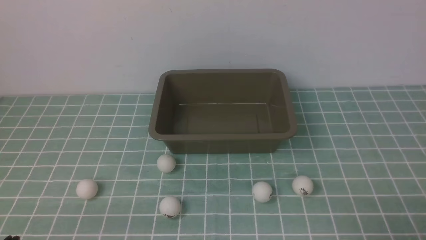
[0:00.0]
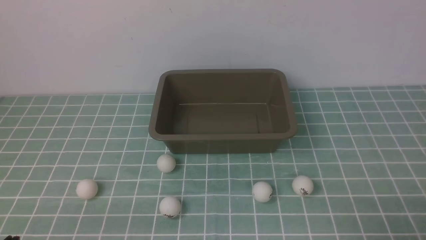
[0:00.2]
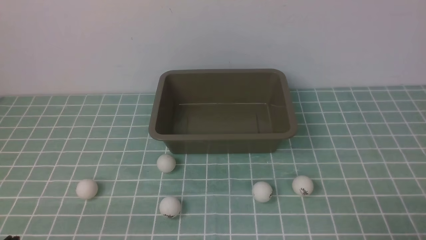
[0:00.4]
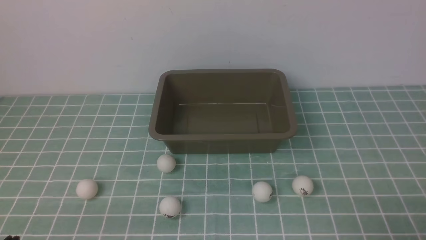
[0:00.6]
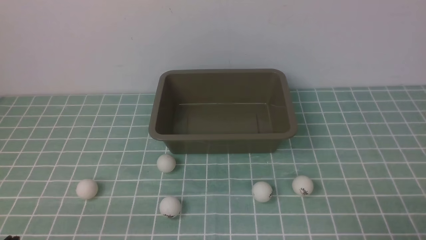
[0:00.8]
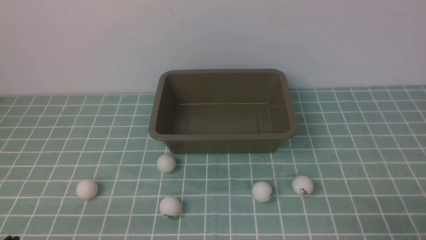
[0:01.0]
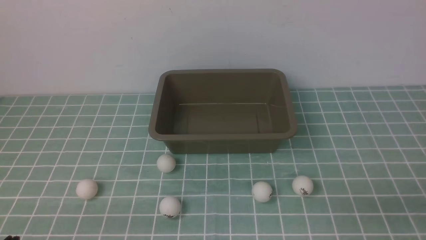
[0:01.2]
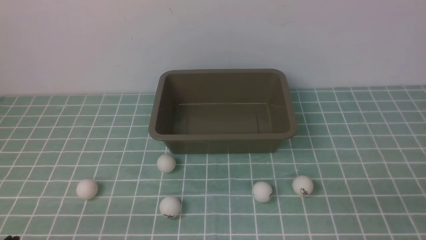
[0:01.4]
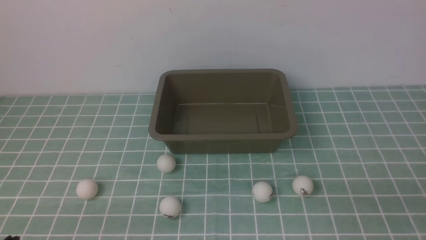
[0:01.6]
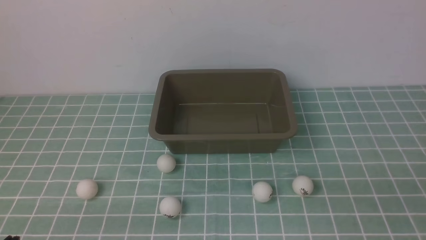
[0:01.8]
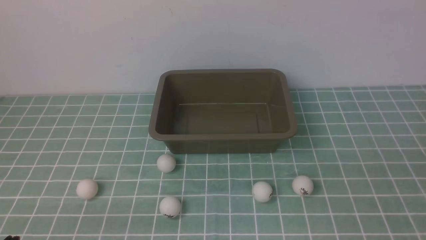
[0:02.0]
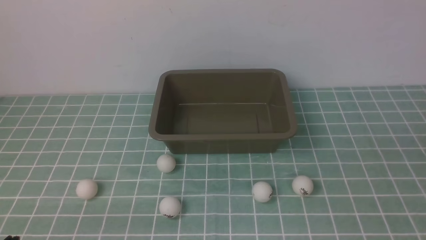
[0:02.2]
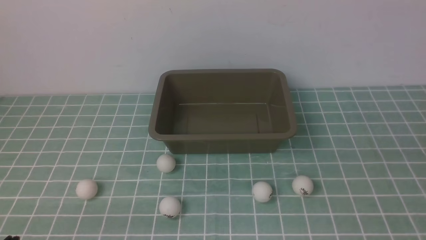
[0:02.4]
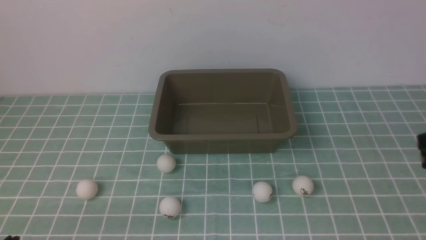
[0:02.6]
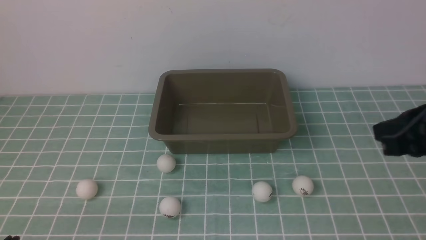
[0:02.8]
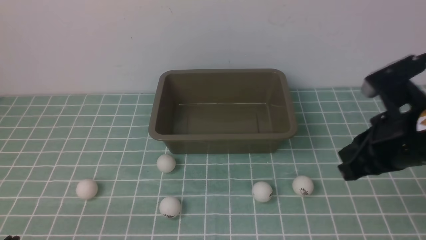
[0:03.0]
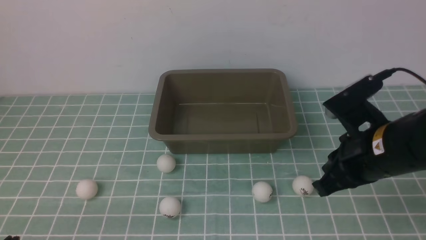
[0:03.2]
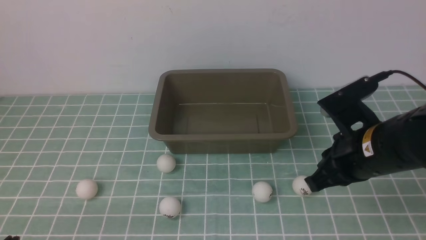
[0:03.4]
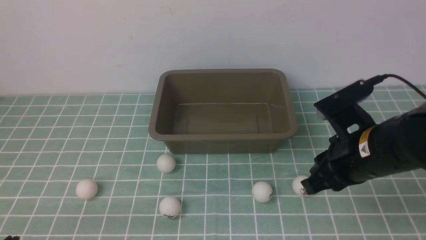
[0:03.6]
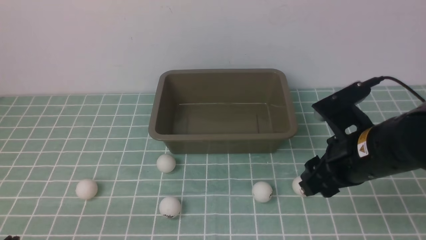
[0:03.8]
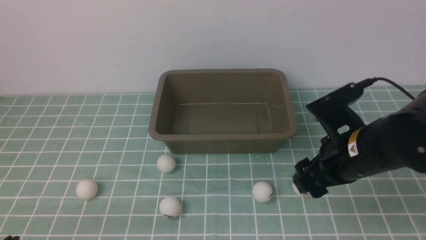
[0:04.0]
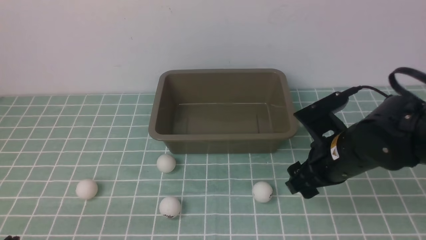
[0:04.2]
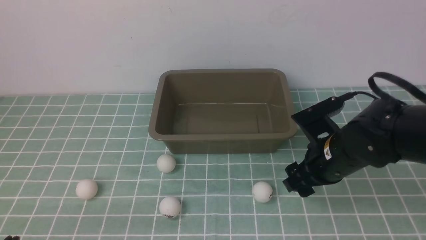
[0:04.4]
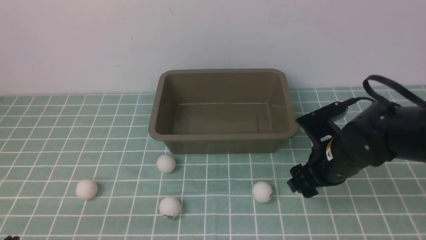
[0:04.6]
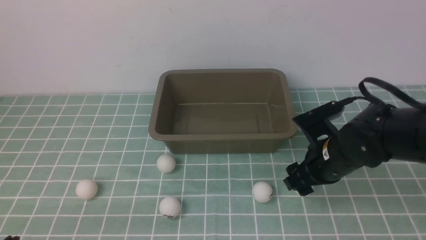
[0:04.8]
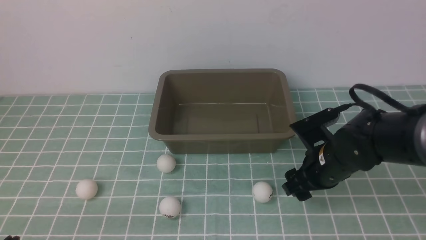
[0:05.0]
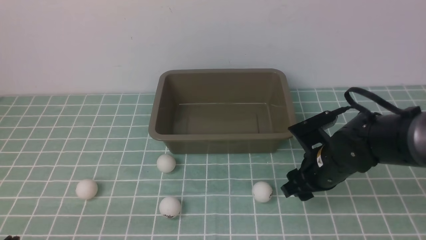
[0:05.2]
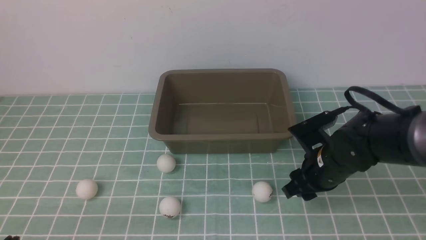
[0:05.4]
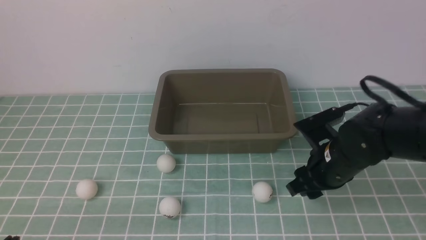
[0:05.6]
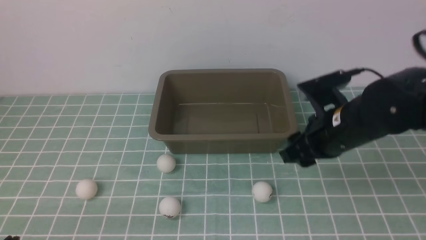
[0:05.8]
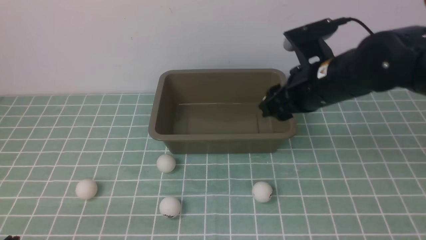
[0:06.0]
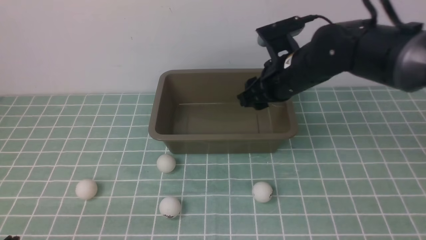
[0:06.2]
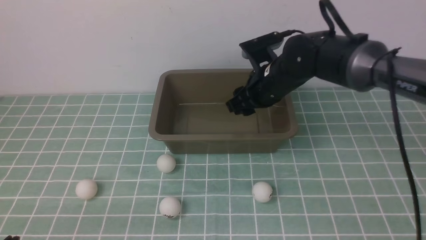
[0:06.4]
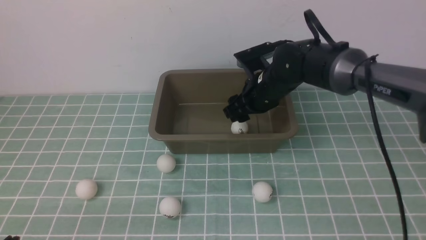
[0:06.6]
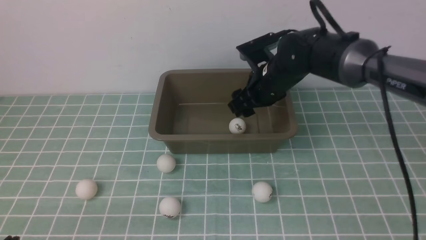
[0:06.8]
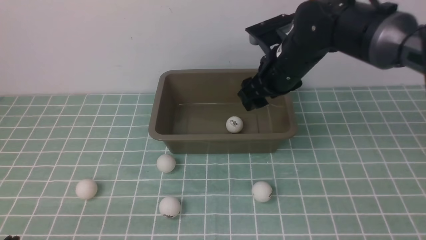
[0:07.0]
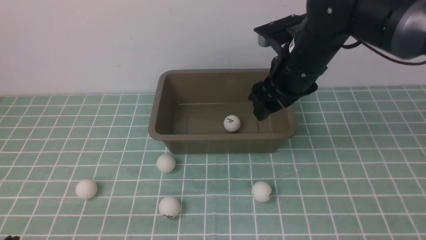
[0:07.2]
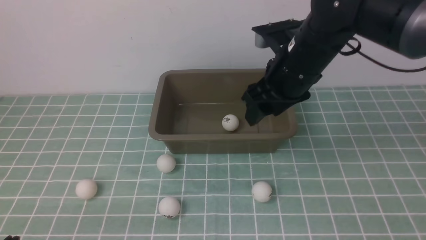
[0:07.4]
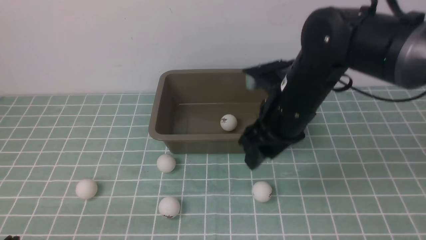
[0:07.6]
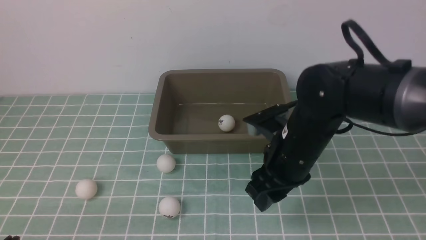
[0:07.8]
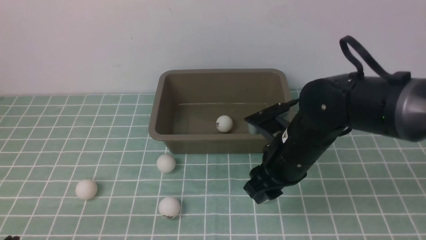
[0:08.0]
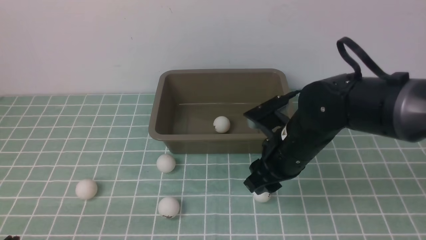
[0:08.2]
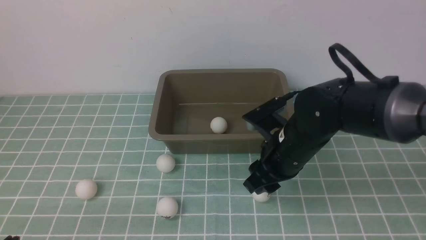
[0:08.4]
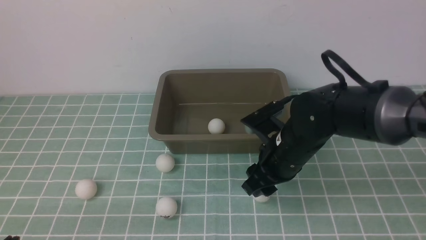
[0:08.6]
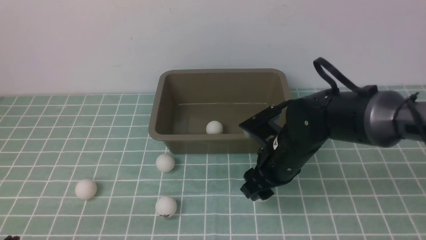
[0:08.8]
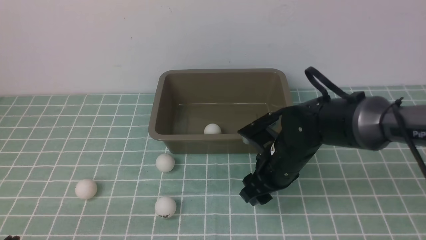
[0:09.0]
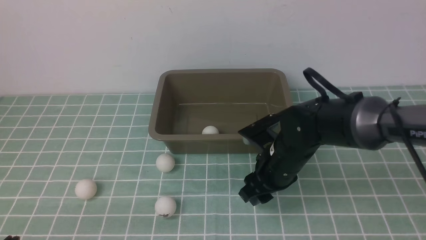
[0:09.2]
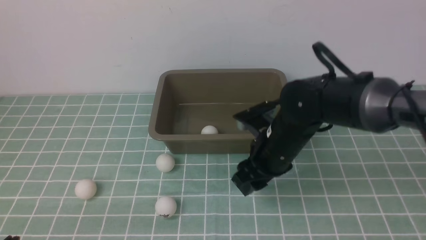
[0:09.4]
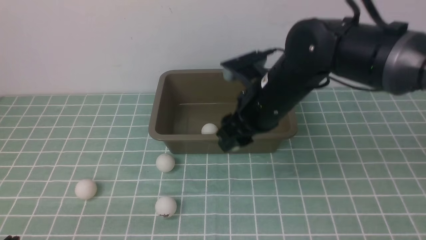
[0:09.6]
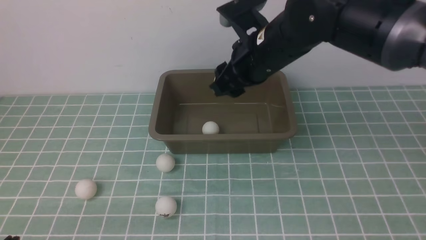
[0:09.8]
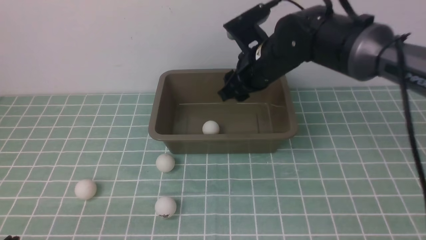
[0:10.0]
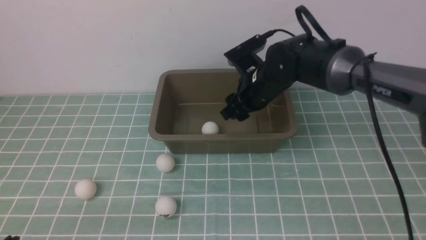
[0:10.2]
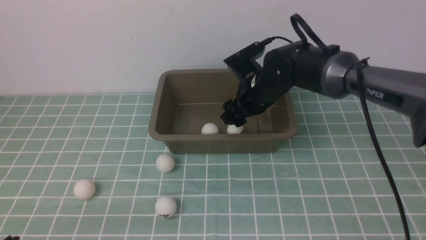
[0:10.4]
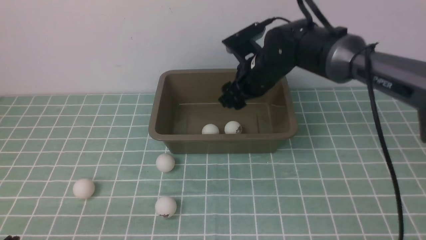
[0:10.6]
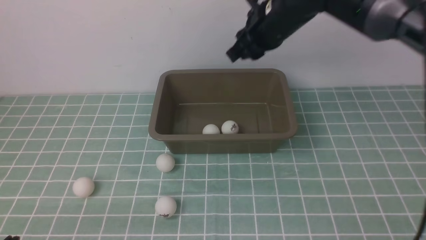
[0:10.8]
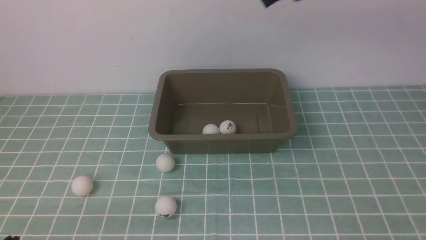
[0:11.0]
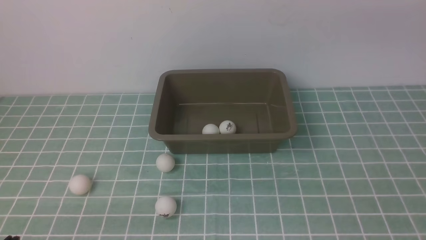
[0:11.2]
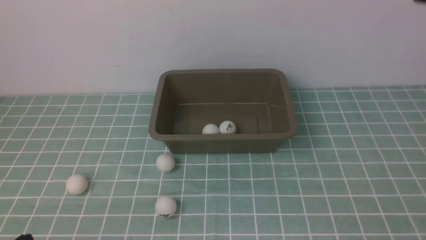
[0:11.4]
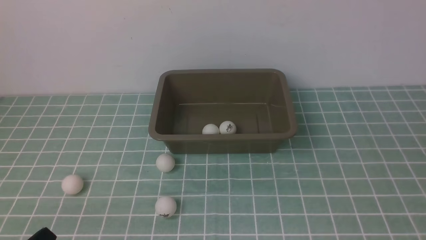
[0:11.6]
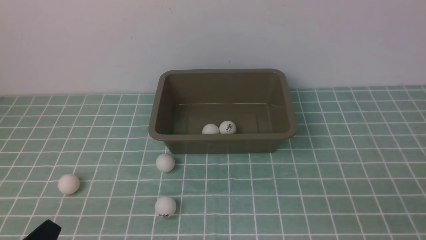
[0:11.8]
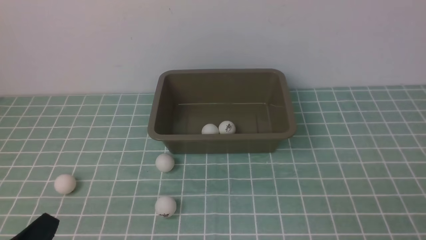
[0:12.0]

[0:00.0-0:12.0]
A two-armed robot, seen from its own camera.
Step, 0:00.0 to 0:05.6: use the right arm to clamp the table tennis ball closest to it.
Step, 0:05.8 to 0:06.8: use the right arm to put the table tennis ball into the box.
Step, 0:07.0 to 0:09.4: use the right arm to clamp the table tennis ball closest to it.
Step, 0:09.6 to 0:10.4: use the right arm to put the table tennis ball into the box.
0:01.6 to 0:03.0: The right gripper is displaced forward and to the left by some 20 cm.
0:03.0 to 0:04.4: The right gripper heads downward, forward and to the left, covering about 15 cm, and opens its fingers.
0:04.4 to 0:06.0: The right gripper moves upward and forward, about 10 cm.
0:06.0 to 0:07.6: The right gripper moves about 10 cm forward and comes back.
0:07.6 to 0:09.0: The right gripper travels downward by approximately 10 cm.
0:09.0 to 0:10.4: The right gripper moves forward, roughly 10 cm.
0:10.4 to 0:12.0: The right gripper shifts about 50 cm backward and to the right, and closes its fingers.

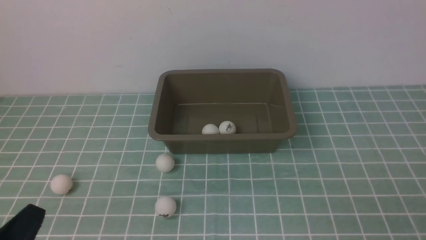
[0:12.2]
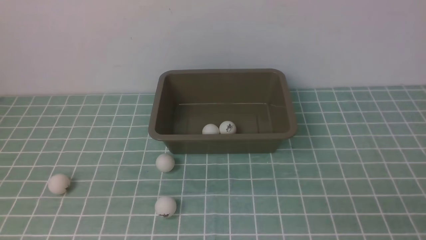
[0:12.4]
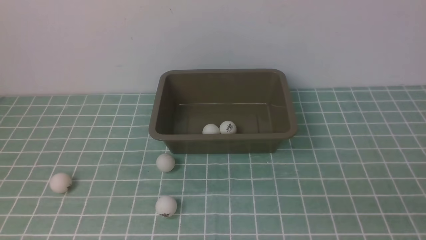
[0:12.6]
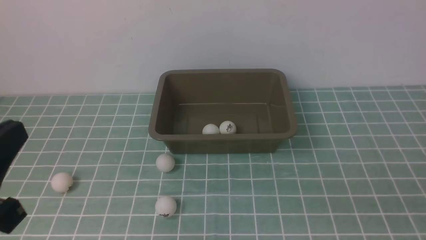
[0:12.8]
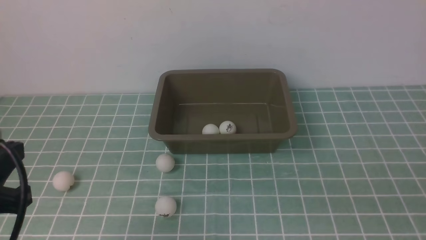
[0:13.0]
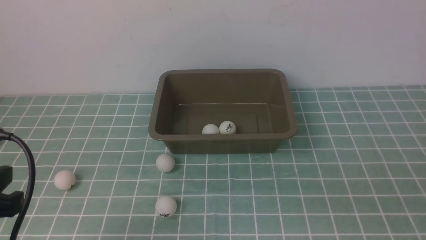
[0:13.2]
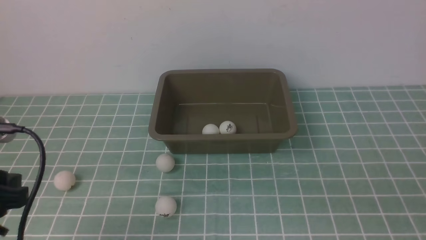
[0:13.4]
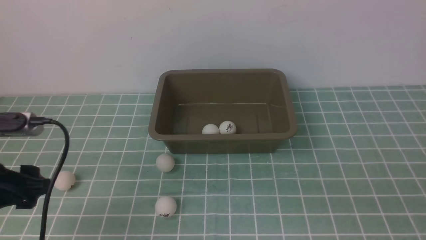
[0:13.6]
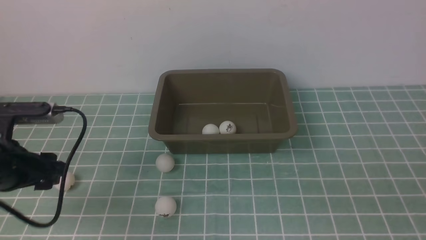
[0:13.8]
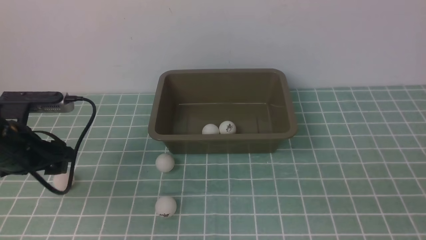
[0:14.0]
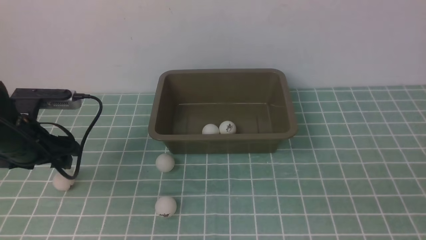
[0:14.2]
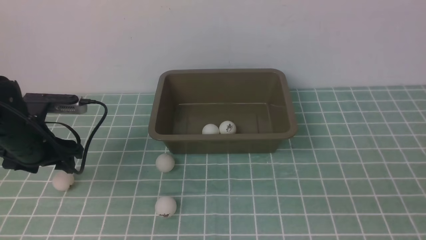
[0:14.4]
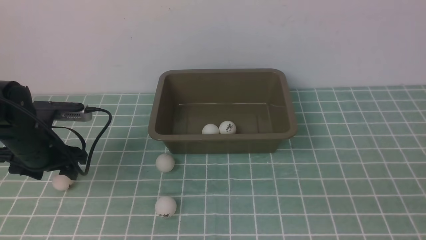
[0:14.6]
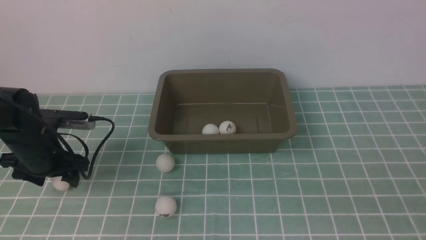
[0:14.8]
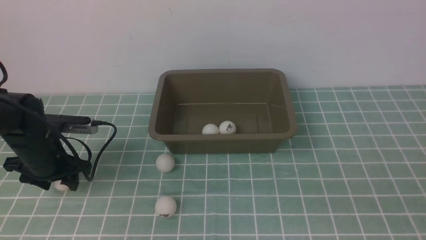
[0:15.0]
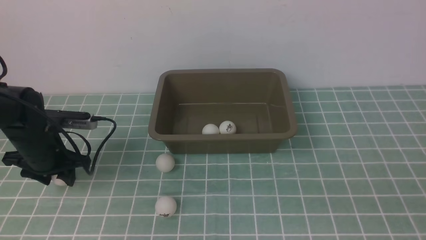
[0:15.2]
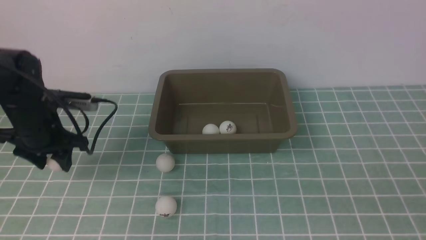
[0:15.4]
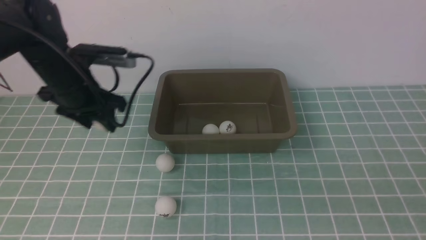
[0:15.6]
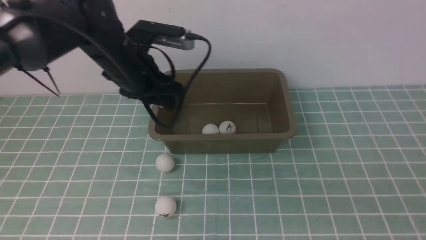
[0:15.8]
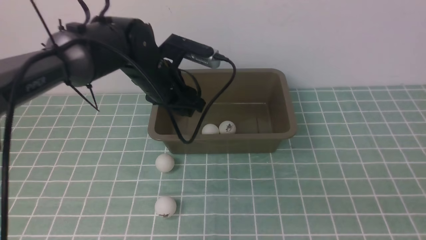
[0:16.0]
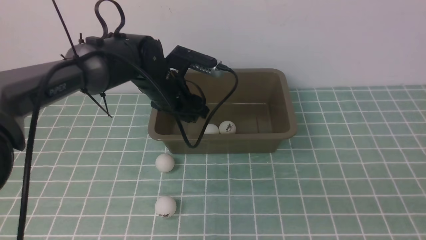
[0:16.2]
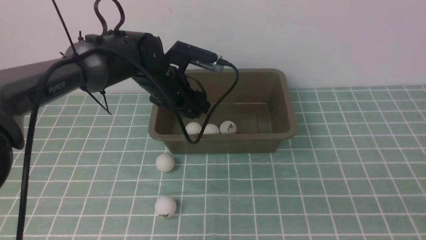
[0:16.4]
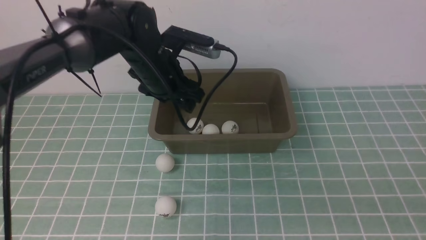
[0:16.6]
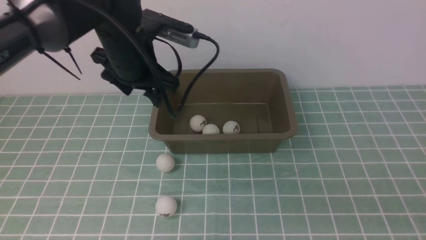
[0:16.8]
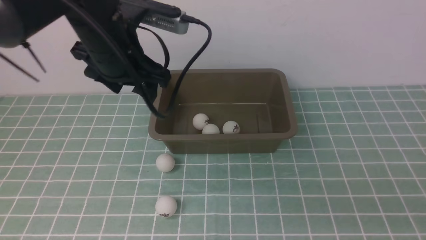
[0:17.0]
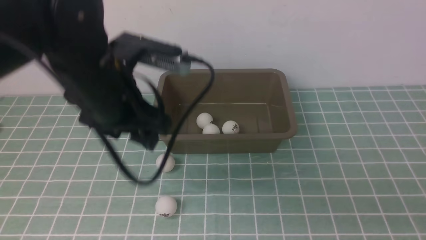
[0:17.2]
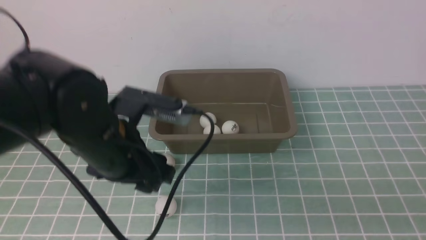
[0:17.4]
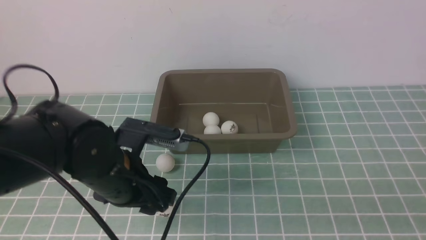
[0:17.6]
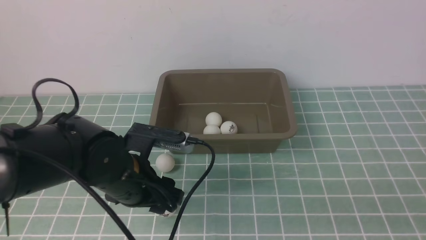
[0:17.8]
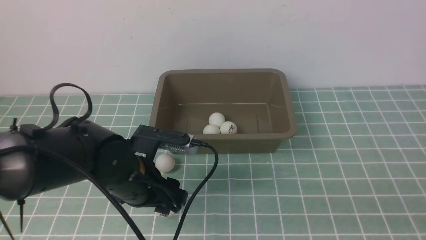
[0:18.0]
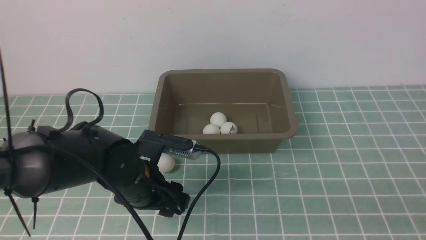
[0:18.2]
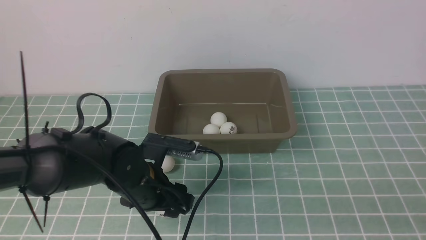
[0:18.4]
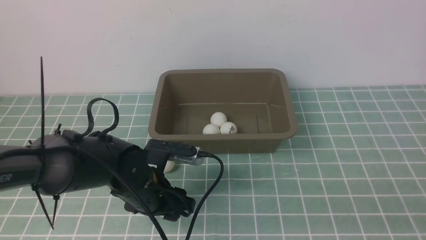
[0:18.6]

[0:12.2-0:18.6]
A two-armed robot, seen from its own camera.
Step, 0:12.2 to 0:15.4: use the left arm to clamp the table tennis ball closest to it.
Step, 0:15.6 to 0:16.4: use the left arm to put the table tennis ball into the box.
0:12.2 to 0:13.8: The left gripper goes some 15 cm forward, and opens its fingers.
0:13.8 to 0:15.4: The left gripper goes approximately 15 cm forward.
0:15.4 to 0:17.0: The left gripper shifts some 20 cm to the right, upward and backward.
0:17.0 to 0:18.6: The left gripper goes some 15 cm downward.
